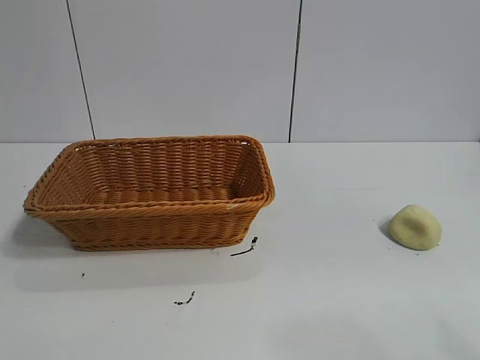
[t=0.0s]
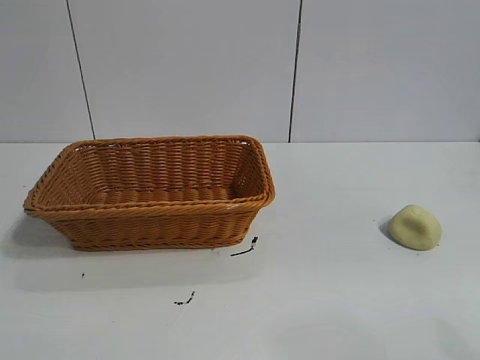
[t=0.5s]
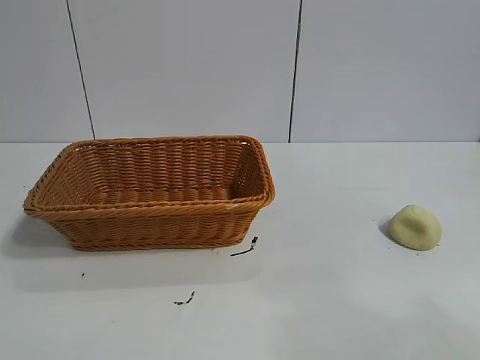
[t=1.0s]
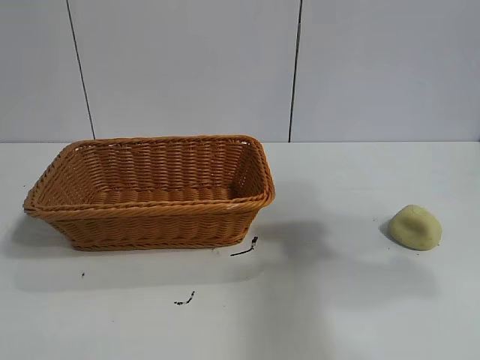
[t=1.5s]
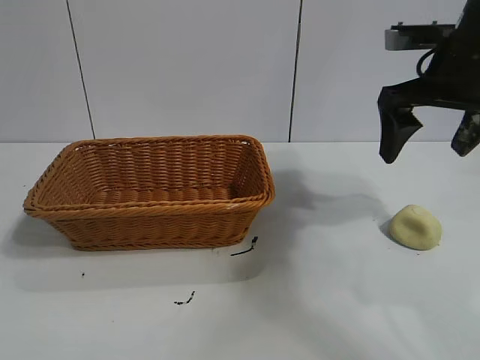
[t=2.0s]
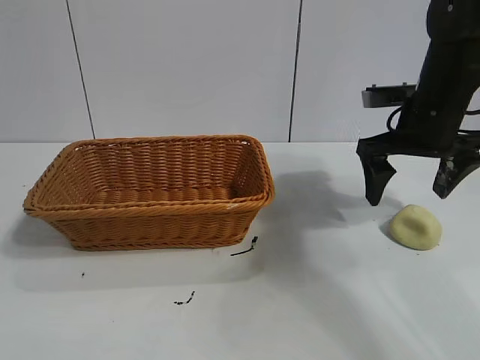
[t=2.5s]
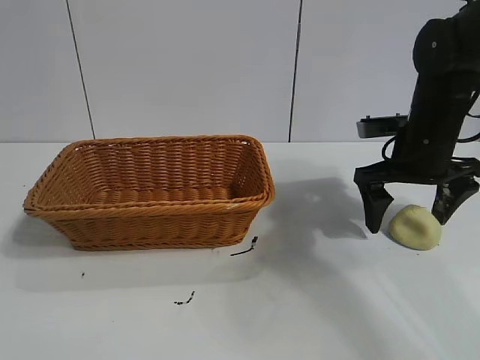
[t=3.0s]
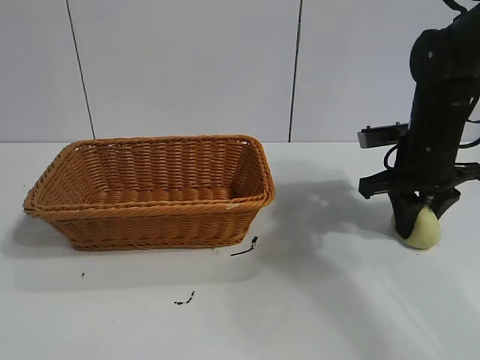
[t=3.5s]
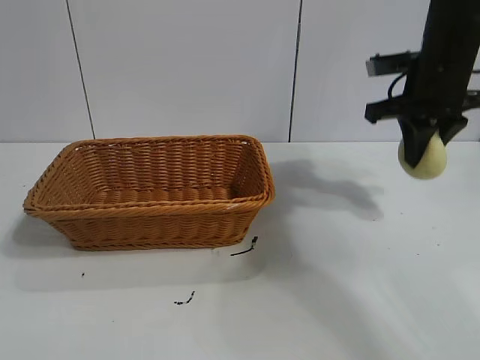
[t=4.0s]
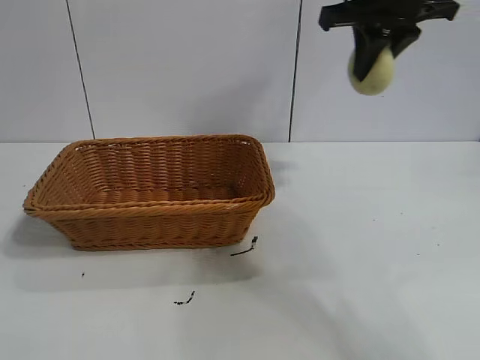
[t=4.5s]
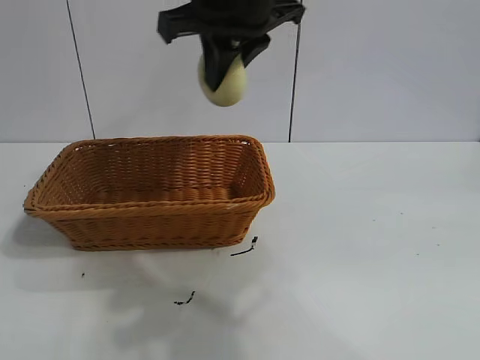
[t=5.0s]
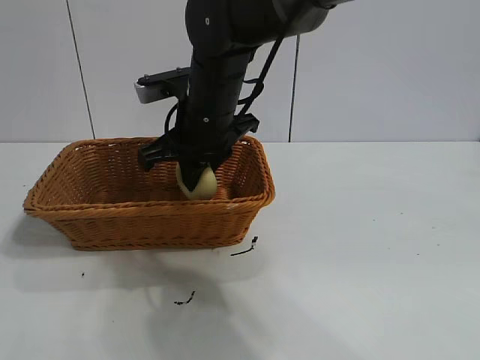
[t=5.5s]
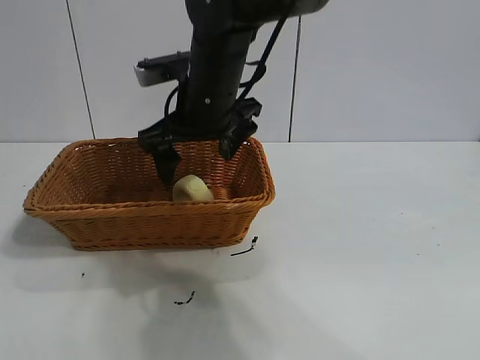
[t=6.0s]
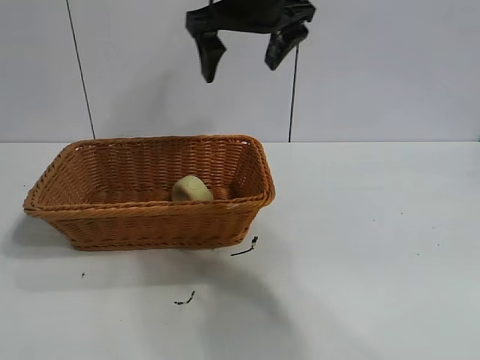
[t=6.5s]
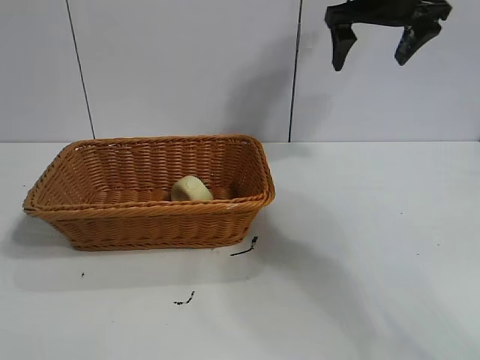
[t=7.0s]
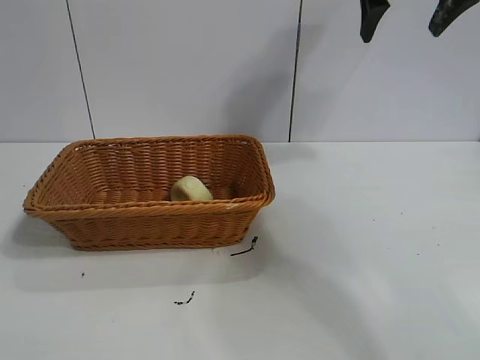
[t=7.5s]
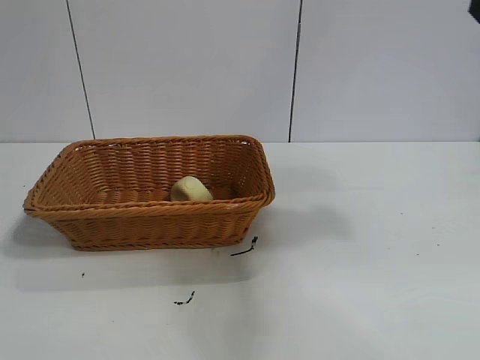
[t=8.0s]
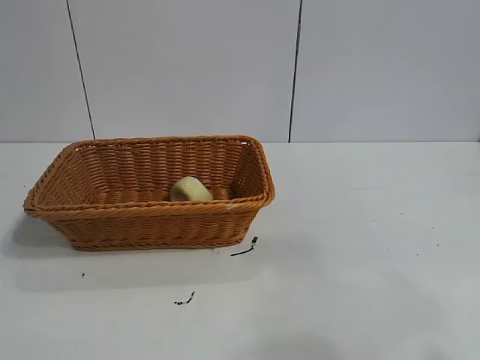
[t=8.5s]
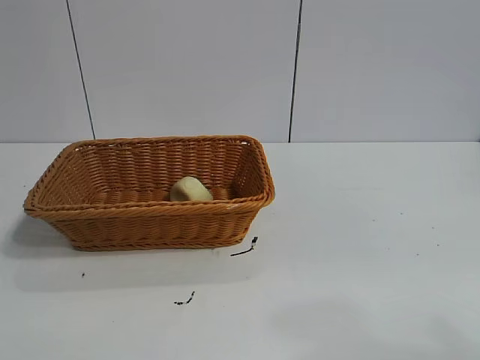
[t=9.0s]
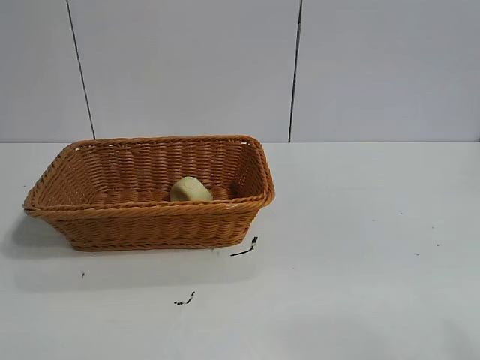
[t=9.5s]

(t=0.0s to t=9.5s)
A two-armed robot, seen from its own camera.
Task of the whole recording: pick up the egg yolk pastry and put it into the basket.
Step, t=1.0s - t=3.5s: Grasp egg yolk pastry with right gripper.
Step, t=4.0s - t=5.5s: Place the egg yolk pastry in the basket with right gripper.
